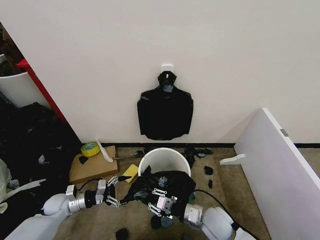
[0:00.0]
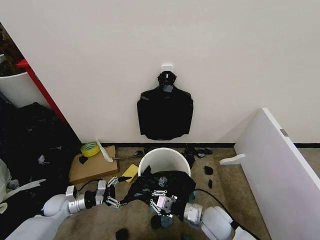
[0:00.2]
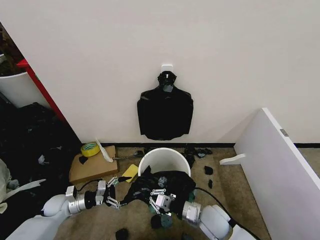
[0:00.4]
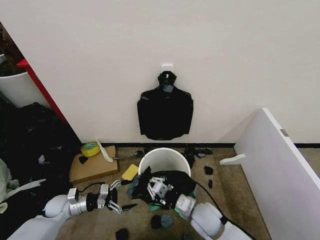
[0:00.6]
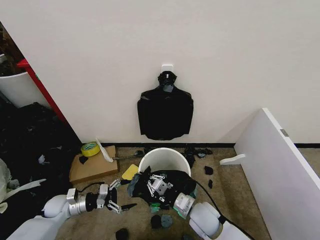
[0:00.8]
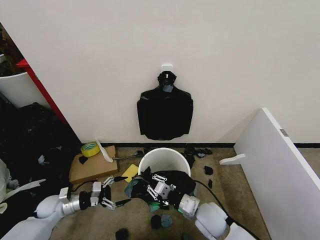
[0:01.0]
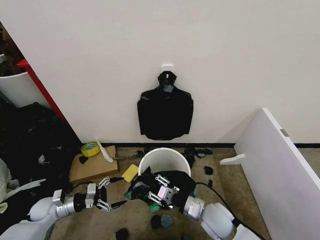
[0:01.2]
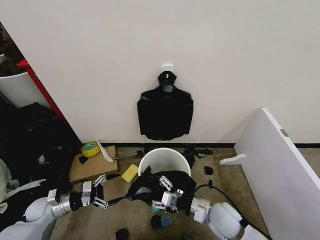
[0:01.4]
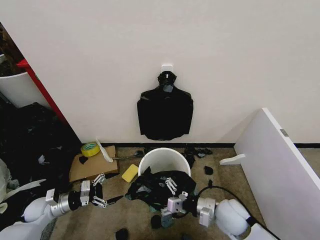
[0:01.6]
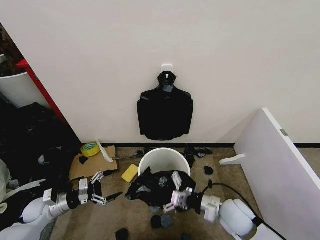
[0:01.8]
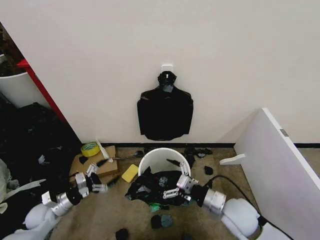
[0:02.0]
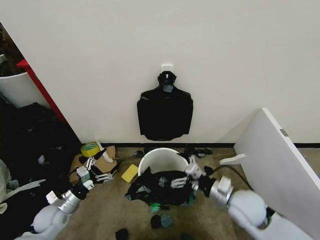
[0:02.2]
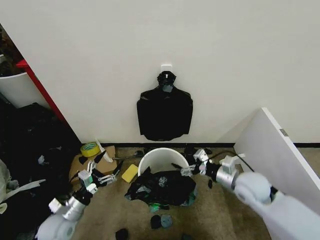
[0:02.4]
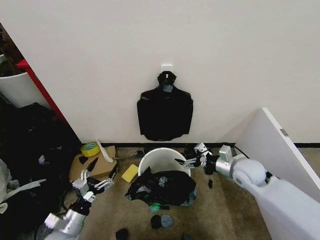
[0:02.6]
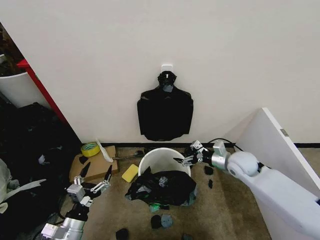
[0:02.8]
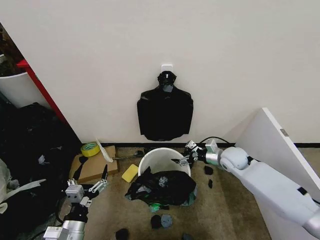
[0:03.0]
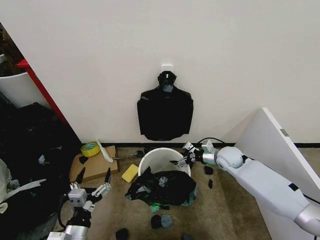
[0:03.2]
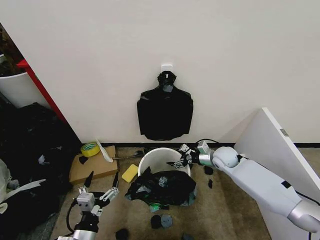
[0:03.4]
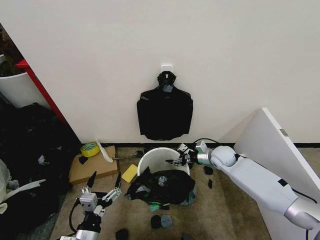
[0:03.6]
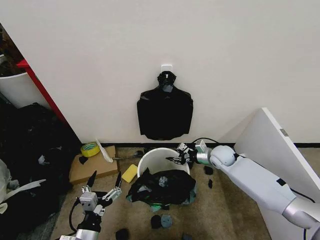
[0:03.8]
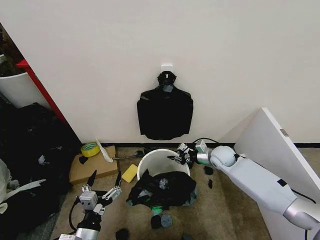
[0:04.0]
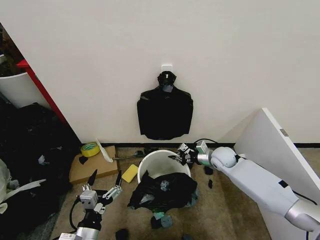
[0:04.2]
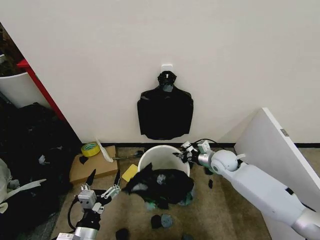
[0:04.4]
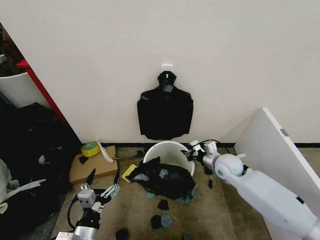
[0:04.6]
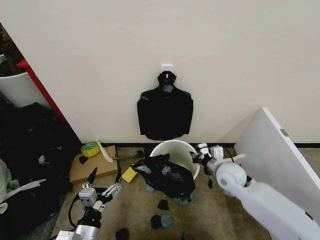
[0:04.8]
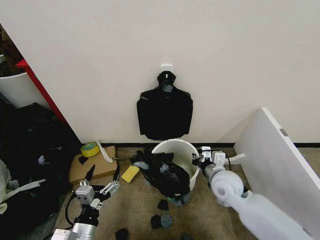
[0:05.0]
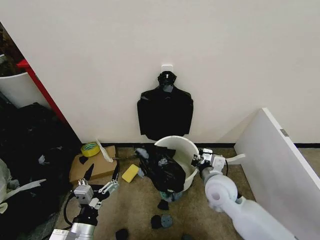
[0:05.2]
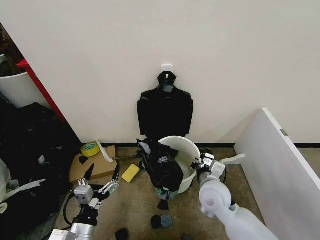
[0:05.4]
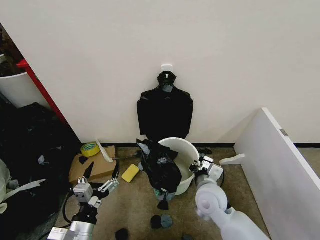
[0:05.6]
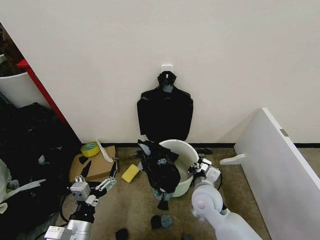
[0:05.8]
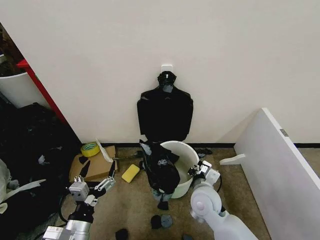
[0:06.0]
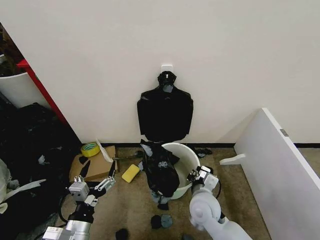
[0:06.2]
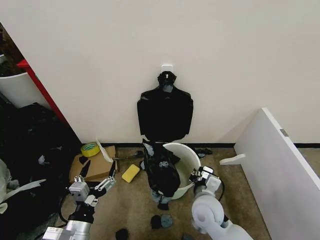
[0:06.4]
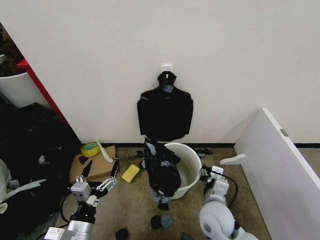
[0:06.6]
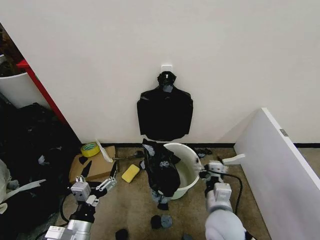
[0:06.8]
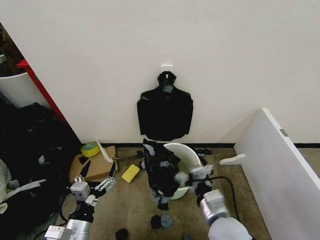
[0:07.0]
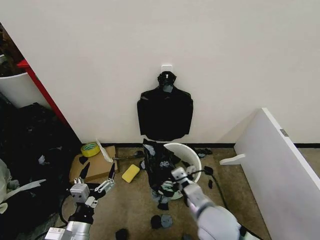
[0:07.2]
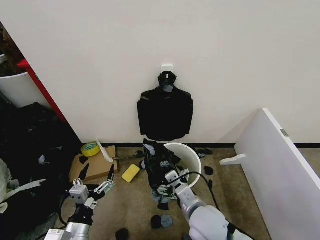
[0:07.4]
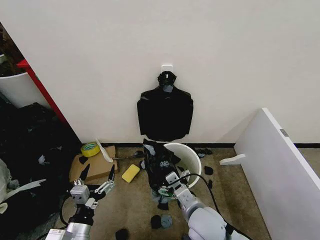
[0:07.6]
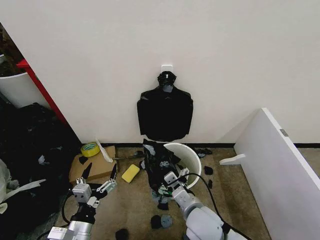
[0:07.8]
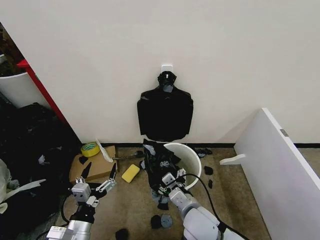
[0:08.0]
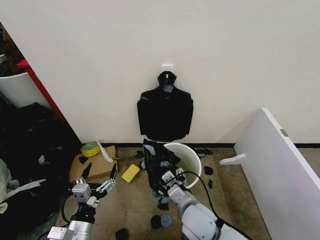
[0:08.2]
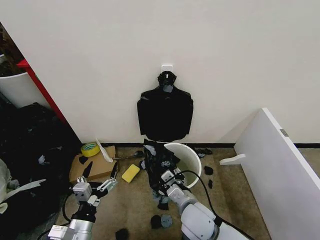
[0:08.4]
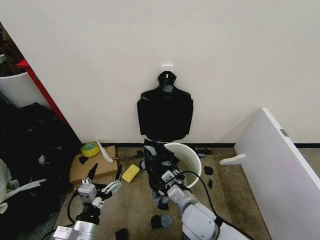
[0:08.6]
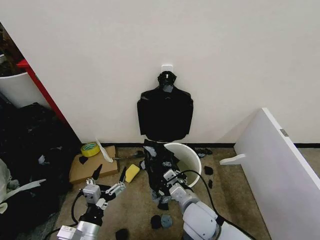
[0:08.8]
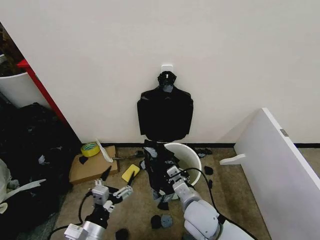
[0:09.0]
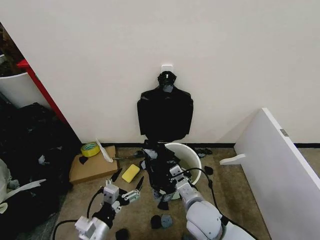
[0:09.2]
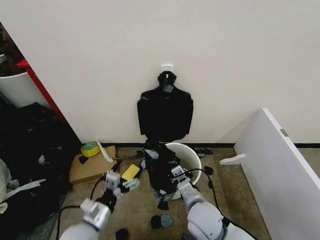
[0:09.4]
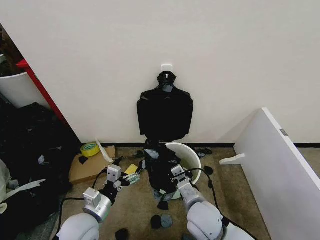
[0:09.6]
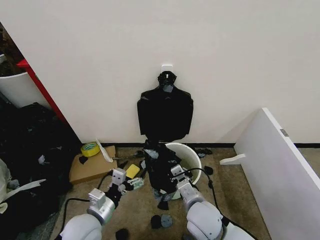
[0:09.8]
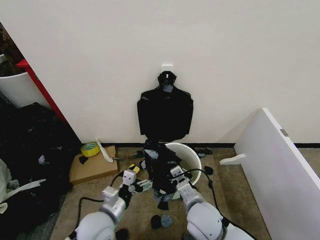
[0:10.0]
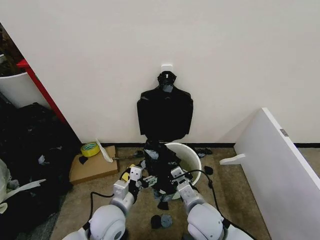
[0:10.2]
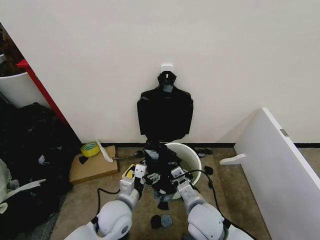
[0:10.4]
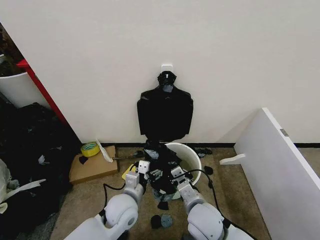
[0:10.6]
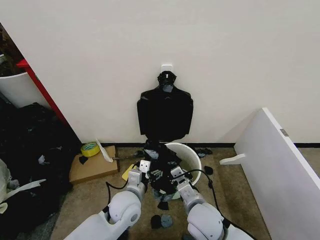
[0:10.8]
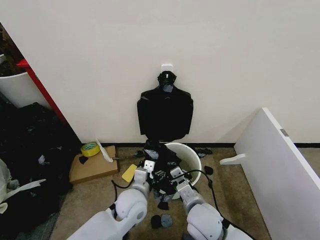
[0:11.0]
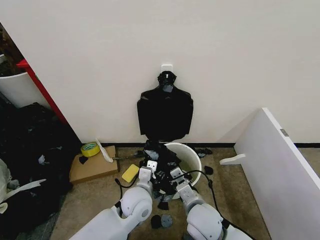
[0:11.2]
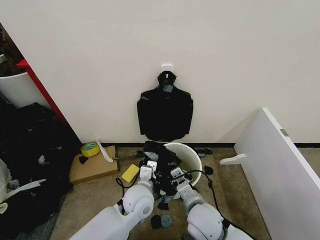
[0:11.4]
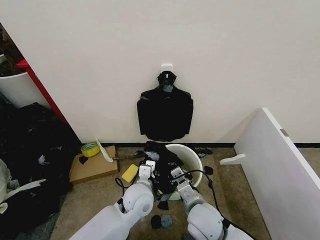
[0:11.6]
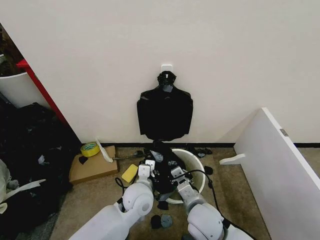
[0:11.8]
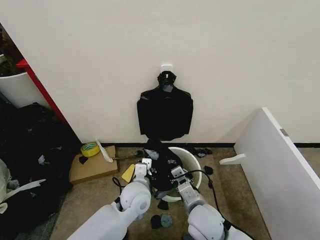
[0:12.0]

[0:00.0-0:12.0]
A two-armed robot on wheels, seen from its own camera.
Task of the whole recording: Place the garbage bag over the trash bin.
0:00.0 to 0:01.6: The left gripper moves about 5 cm, while the right gripper shifts by roughly 5 cm, and opens up.
0:01.6 to 0:03.0: The right gripper is displaced forward by some 20 cm. Meanwhile the left gripper goes some 20 cm to the right and backward.
0:03.0 to 0:04.4: The right gripper closes.
0:04.4 to 0:06.0: The right gripper heads backward and to the left, covering about 20 cm.
0:06.0 to 0:07.6: The right gripper goes about 10 cm backward, and opens up.
0:07.6 to 0:09.0: The right gripper closes its fingers.
0:09.0 to 0:10.4: The left gripper goes some 15 cm forward and to the right.
0:10.4 to 0:12.0: The left gripper travels forward and to the right by approximately 10 cm, and closes.

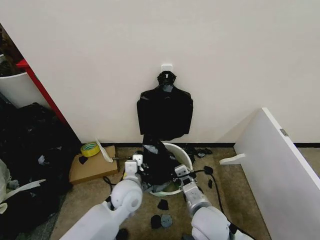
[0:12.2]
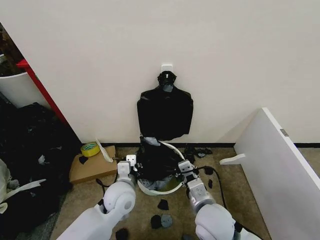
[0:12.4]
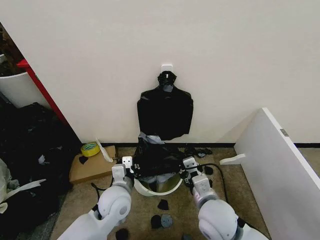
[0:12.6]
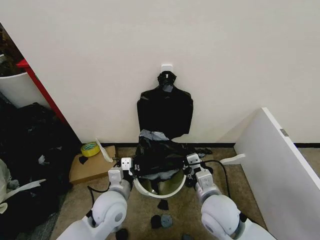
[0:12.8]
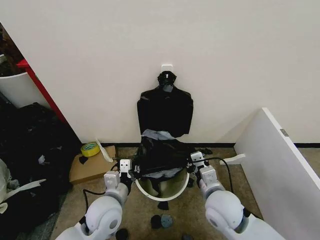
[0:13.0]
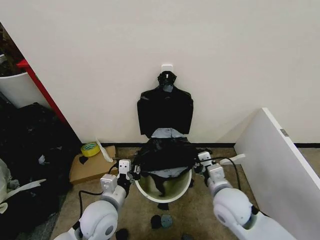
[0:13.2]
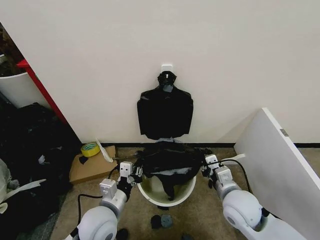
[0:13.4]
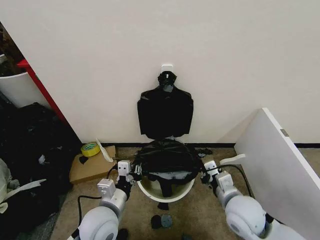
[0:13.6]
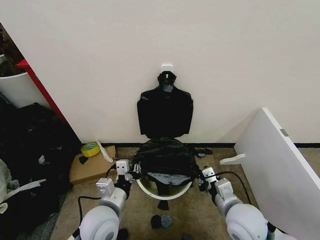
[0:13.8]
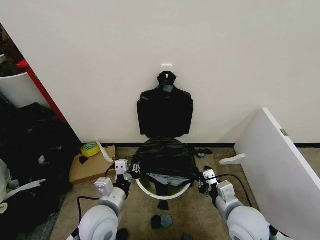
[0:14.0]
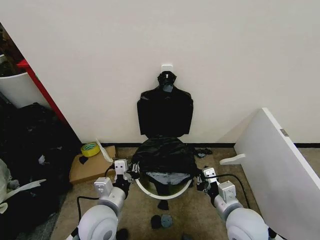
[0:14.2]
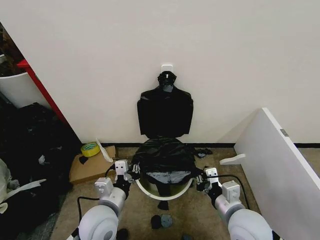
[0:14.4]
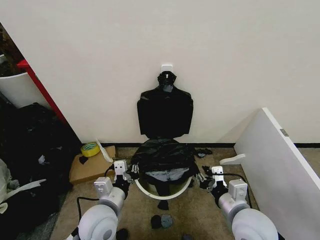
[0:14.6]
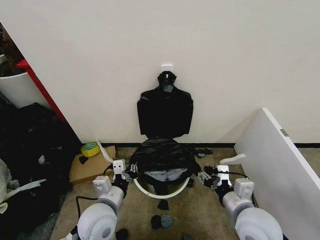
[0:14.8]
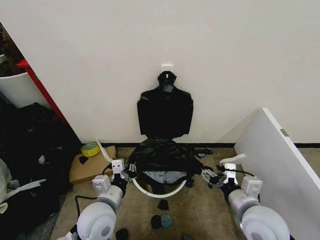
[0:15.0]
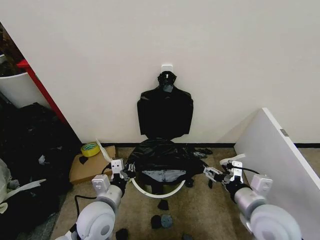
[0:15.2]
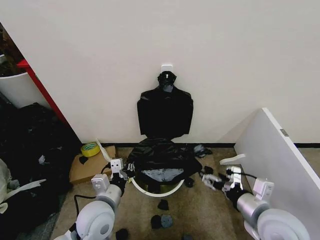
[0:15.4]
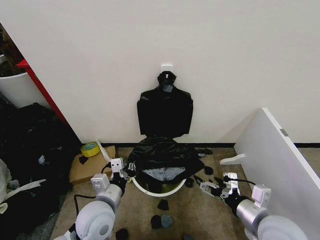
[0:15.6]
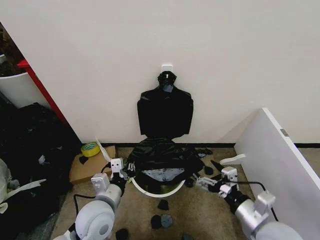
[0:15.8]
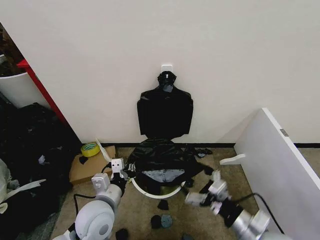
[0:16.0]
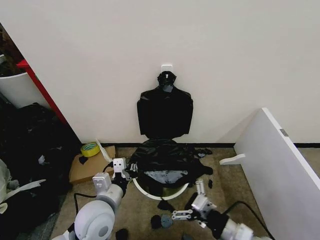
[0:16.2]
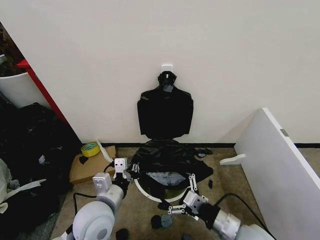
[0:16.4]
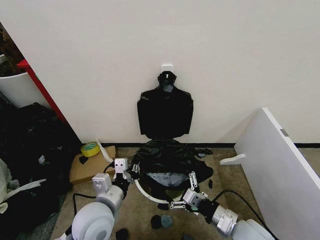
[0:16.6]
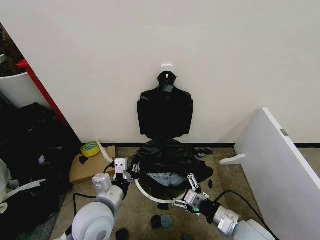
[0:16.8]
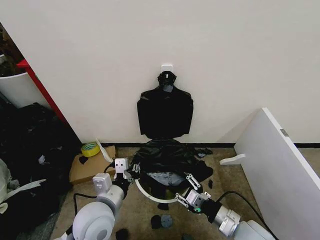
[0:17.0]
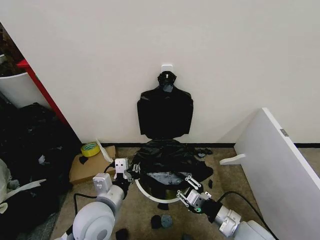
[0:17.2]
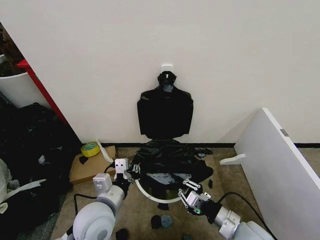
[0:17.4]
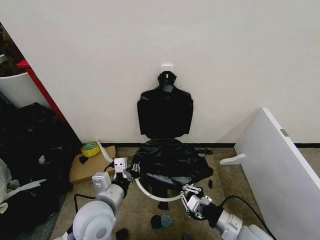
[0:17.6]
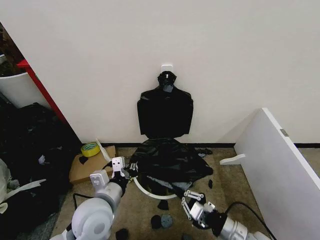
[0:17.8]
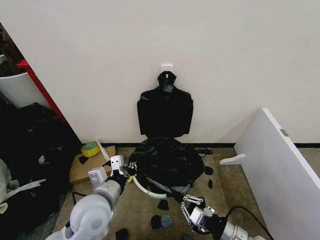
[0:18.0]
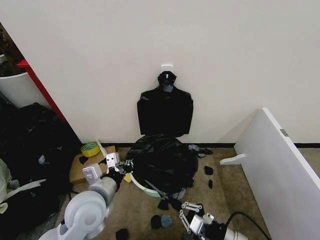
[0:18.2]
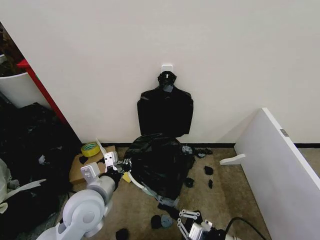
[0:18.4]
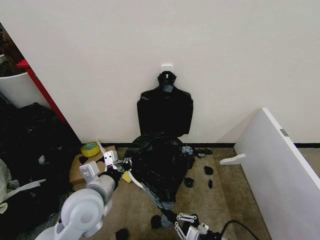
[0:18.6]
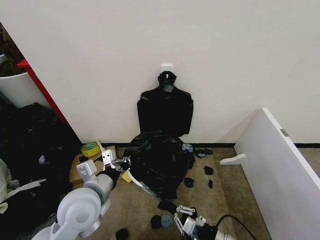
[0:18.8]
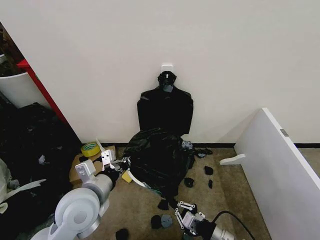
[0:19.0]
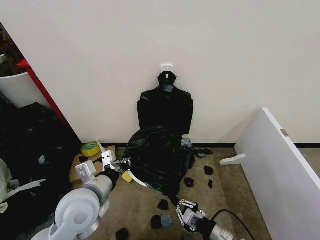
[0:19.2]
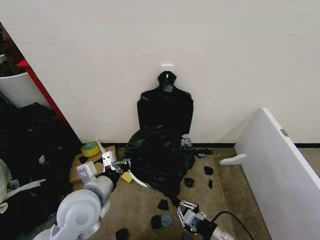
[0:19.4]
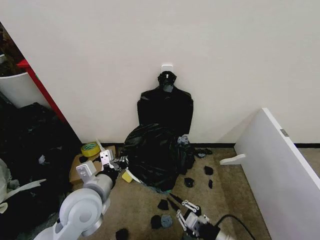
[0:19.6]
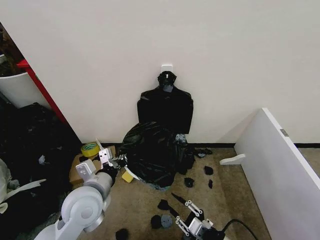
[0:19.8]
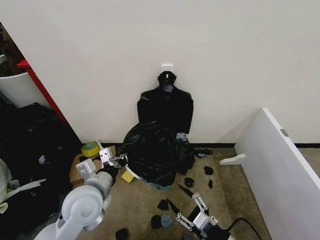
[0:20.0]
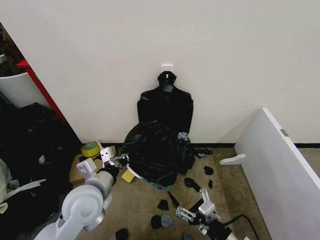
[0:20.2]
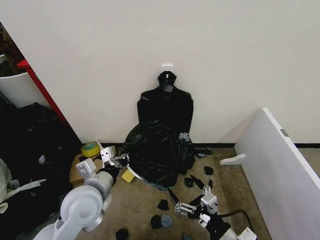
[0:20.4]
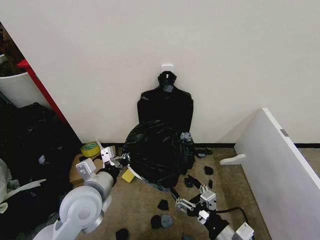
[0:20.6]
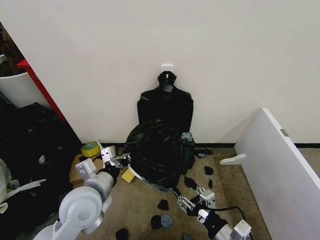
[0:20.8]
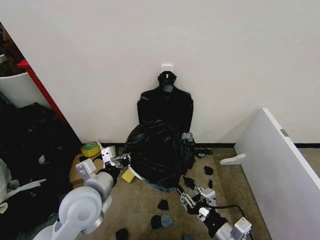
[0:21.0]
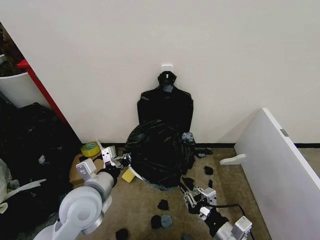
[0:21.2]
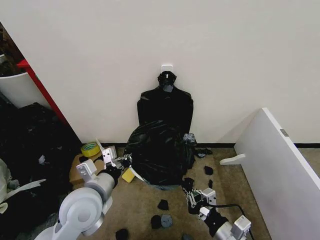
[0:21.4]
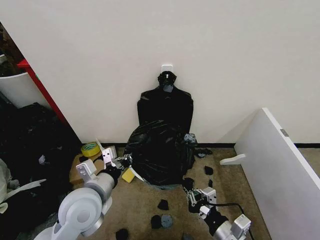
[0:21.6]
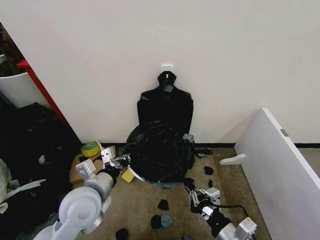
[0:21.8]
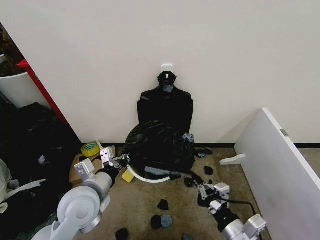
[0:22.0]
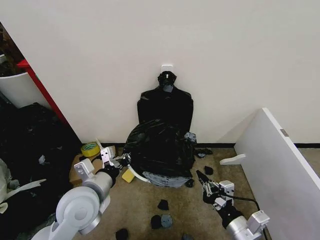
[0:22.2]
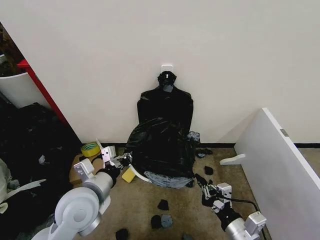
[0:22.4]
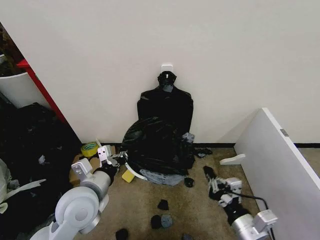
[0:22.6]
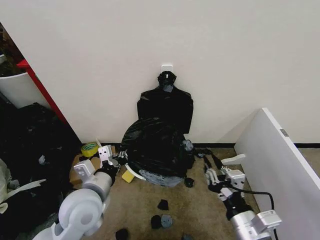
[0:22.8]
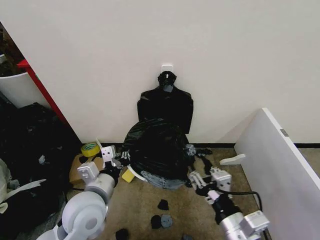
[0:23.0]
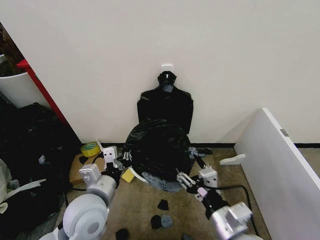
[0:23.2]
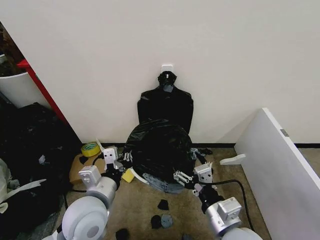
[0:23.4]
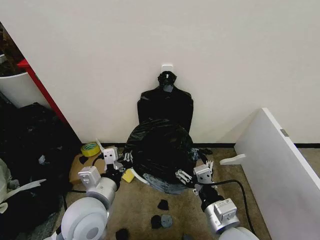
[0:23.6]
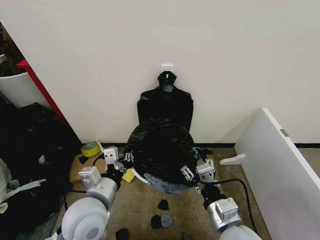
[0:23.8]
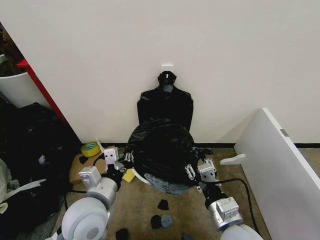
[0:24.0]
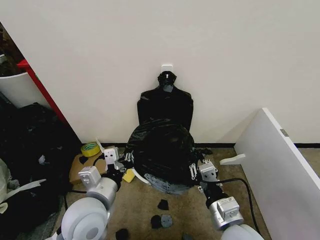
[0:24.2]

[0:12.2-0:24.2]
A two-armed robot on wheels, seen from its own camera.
Task of the whole recording: Place the garbage bag over the trash bin.
0:12.2 to 0:13.8: The right gripper is displaced to the right by roughly 10 cm, while the left gripper goes approximately 10 cm backward and to the left.
0:13.8 to 0:15.2: The right gripper shifts by roughly 5 cm, and opens.
0:15.2 to 0:16.6: The right gripper goes roughly 10 cm downward.
0:16.6 to 0:18.2: The right gripper moves some 5 cm, and closes up.
0:18.2 to 0:19.8: The grippers move only a little.
0:19.8 to 0:21.2: The right gripper moves upward, approximately 5 cm, and opens, then closes once more.
0:21.2 to 0:22.6: The grippers move only a little.
0:22.6 to 0:24.2: The right gripper shifts some 5 cm to the left, and opens and closes again.
